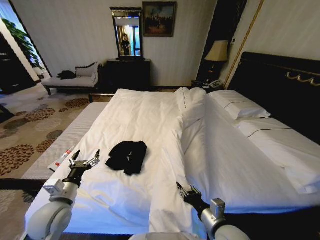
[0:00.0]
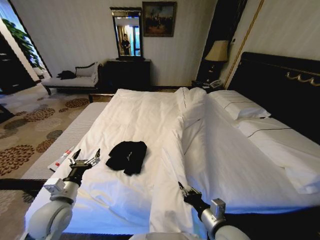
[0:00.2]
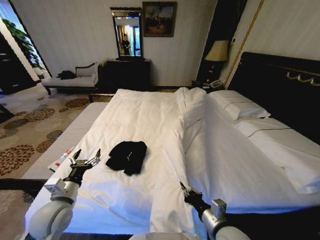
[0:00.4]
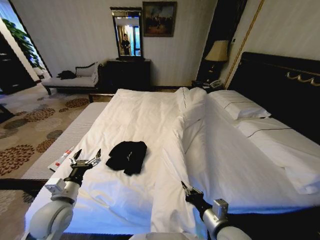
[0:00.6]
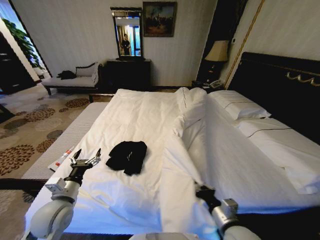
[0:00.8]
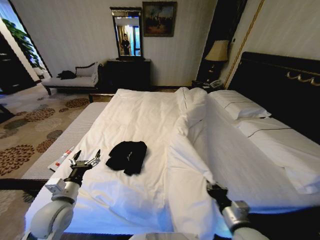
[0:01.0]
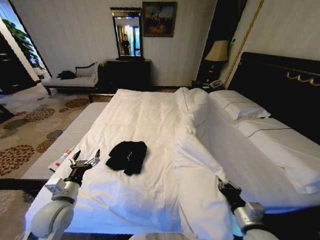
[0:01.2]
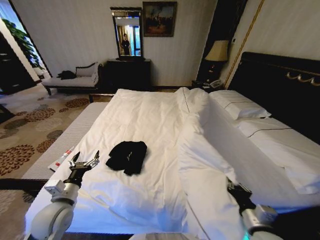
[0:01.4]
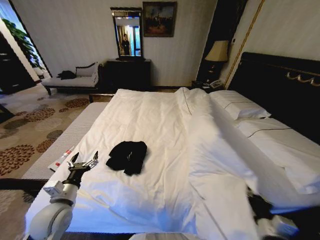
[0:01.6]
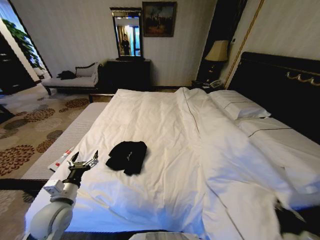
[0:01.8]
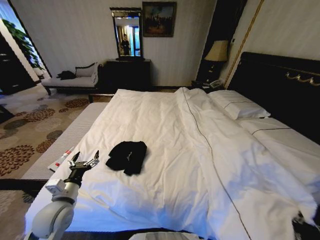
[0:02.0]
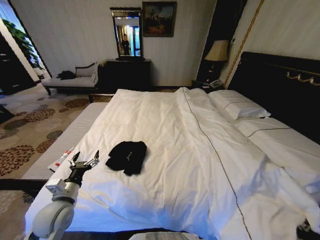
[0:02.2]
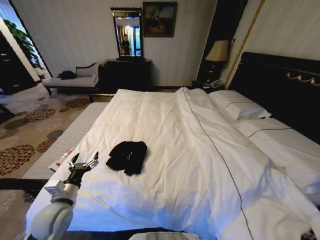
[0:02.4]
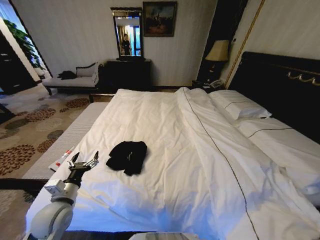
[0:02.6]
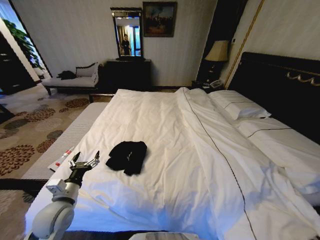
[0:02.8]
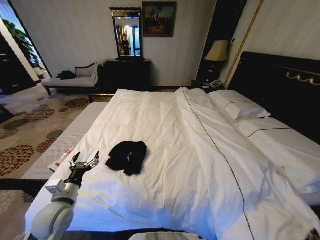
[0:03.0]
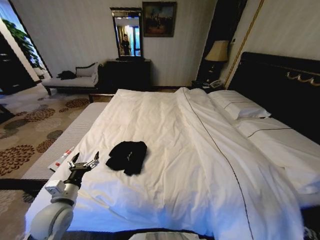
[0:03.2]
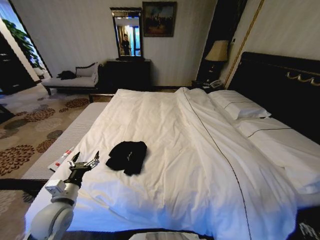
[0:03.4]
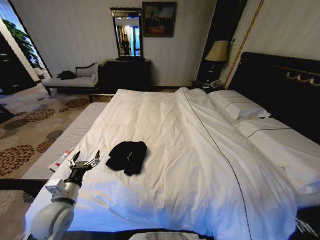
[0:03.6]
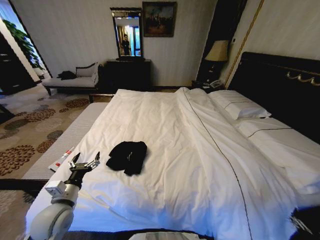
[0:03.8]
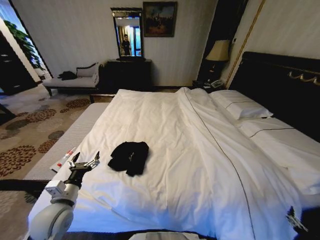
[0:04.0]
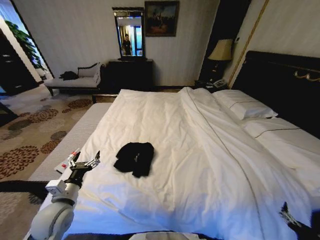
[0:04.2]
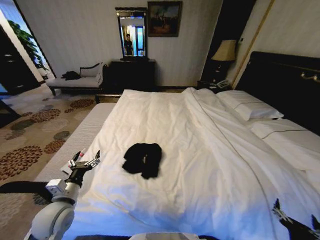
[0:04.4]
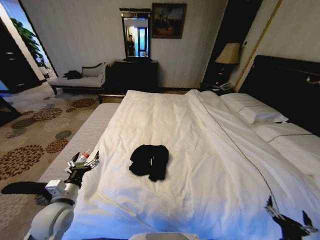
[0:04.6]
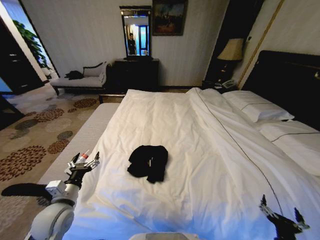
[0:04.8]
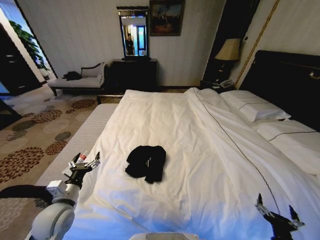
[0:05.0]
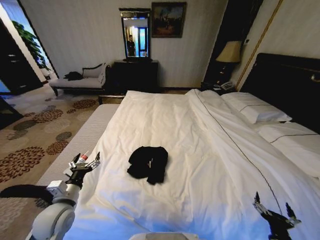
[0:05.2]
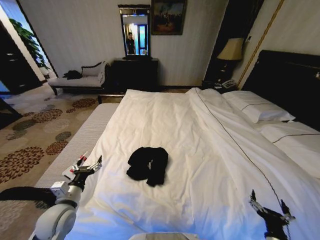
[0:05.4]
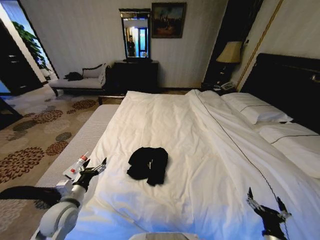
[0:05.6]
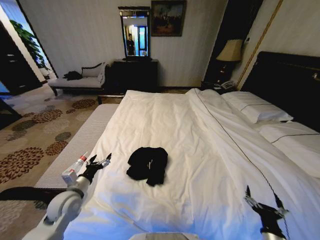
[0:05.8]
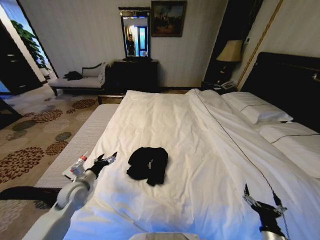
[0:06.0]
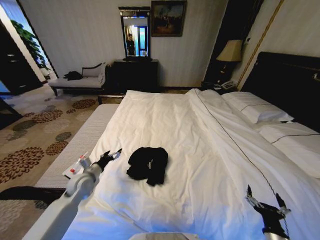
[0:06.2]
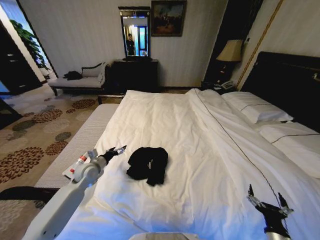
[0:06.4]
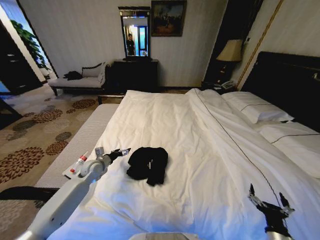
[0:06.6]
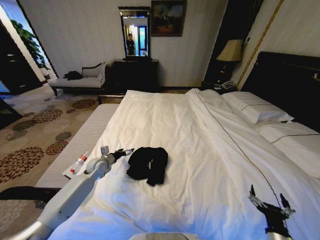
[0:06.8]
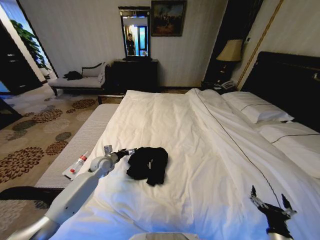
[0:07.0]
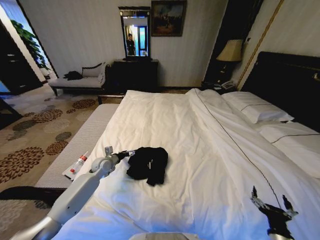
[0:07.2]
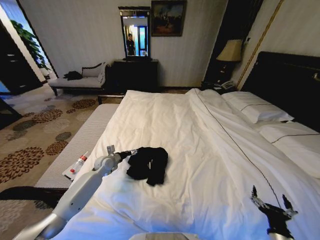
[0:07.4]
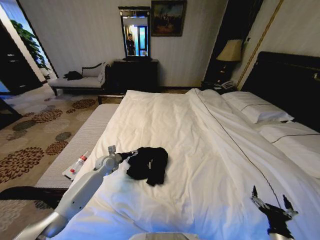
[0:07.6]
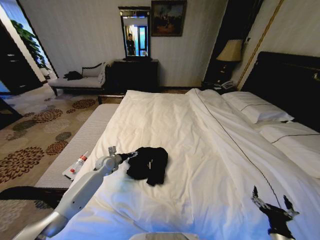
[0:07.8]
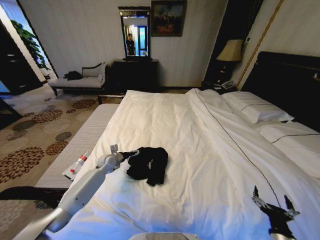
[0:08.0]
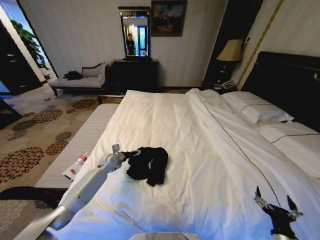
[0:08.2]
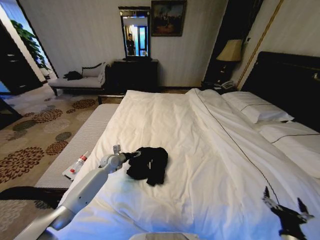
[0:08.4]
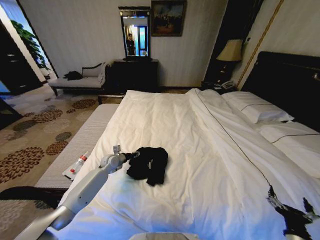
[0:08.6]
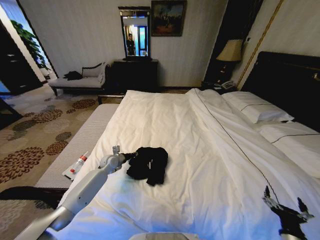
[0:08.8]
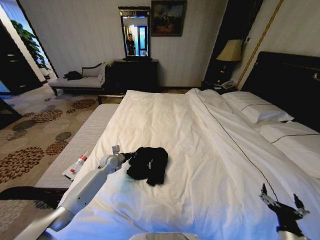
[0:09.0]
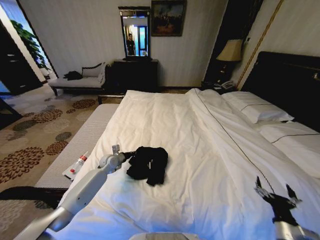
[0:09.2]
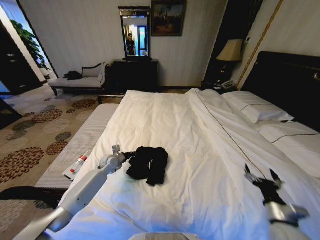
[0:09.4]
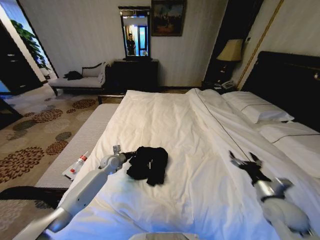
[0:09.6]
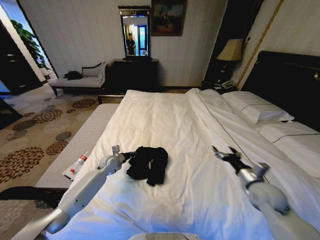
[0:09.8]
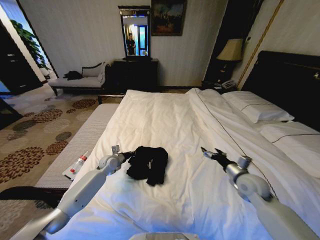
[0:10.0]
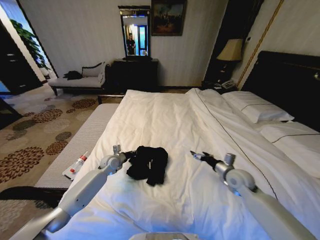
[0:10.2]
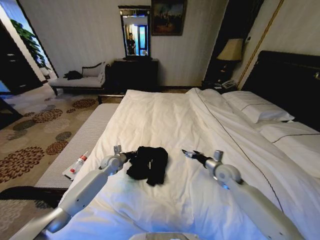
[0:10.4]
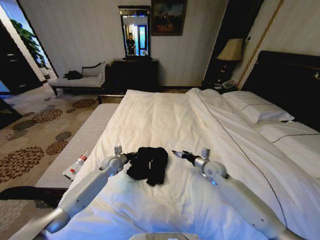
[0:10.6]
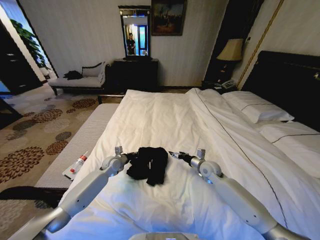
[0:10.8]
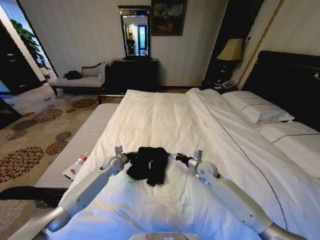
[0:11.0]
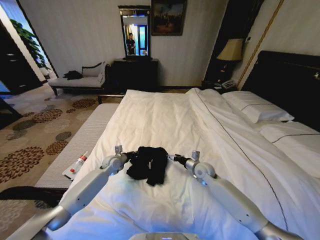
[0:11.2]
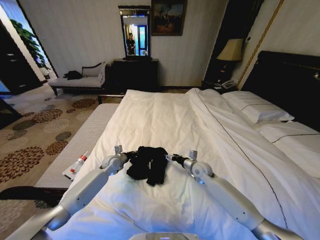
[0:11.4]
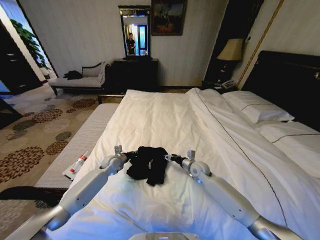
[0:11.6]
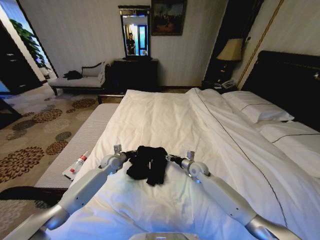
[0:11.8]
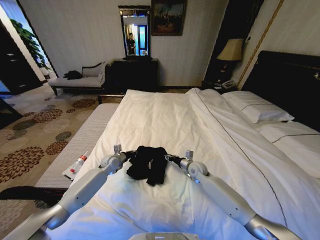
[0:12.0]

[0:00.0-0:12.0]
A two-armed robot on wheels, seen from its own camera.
Task of the whole recording: Fold the clothes on the bed.
0:00.0 to 0:01.6: The right gripper goes some 15 cm to the right, and closes up.
0:01.6 to 0:03.0: The right gripper moves to the right, downward and backward, some 20 cm.
0:03.0 to 0:04.4: The right gripper moves to the left, approximately 5 cm, and opens its fingers.
0:04.4 to 0:06.0: The right gripper changes place by roughly 5 cm. Meanwhile the left gripper travels forward by approximately 10 cm.
0:06.0 to 0:07.6: The left gripper goes some 15 cm forward.
0:07.6 to 0:09.0: The left gripper closes.
0:09.0 to 0:10.4: The right gripper heads forward, covering about 30 cm.
0:10.4 to 0:12.0: The right gripper is displaced to the left, downward and forward by about 15 cm, and closes up.

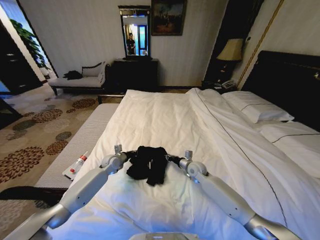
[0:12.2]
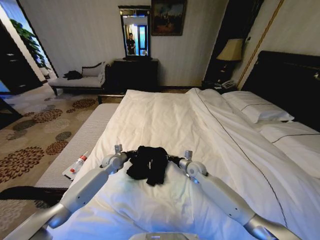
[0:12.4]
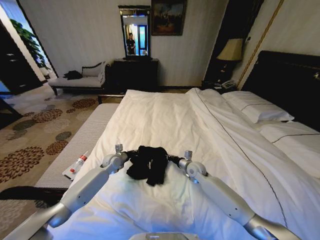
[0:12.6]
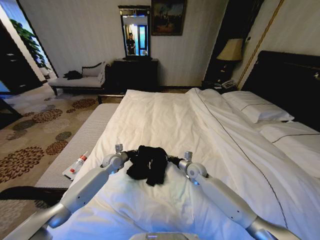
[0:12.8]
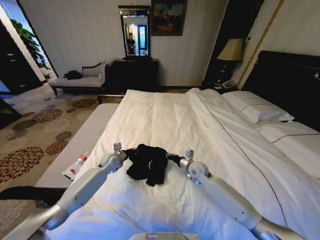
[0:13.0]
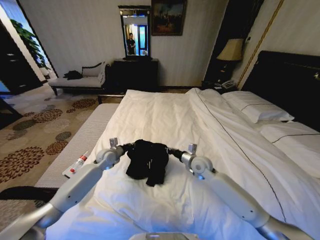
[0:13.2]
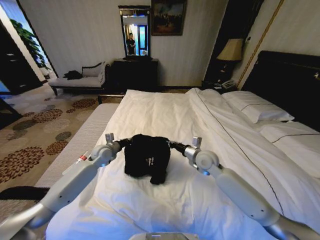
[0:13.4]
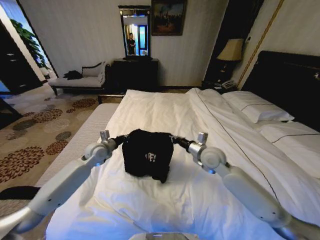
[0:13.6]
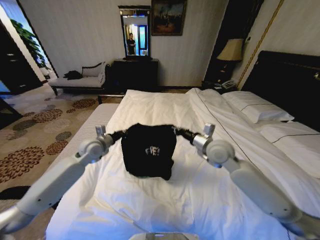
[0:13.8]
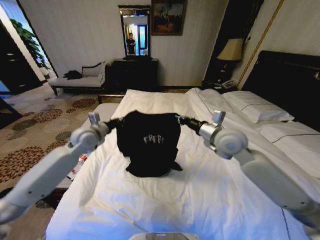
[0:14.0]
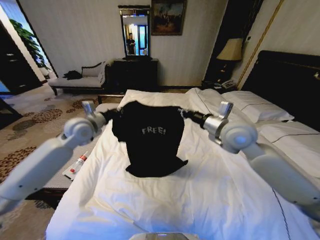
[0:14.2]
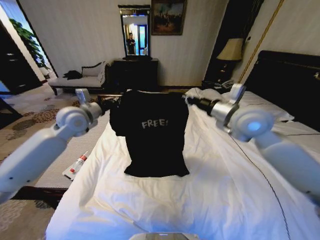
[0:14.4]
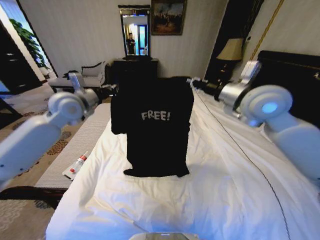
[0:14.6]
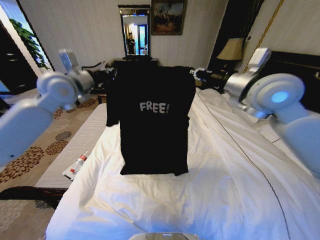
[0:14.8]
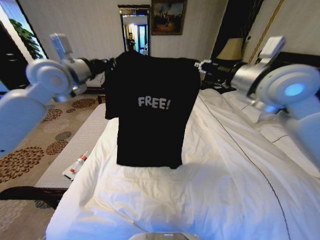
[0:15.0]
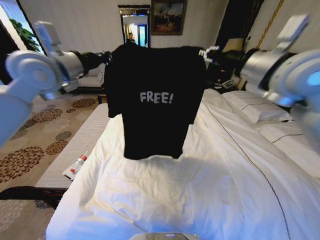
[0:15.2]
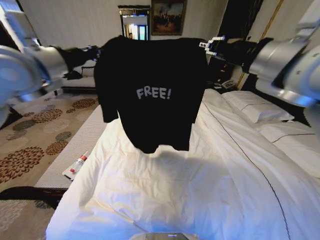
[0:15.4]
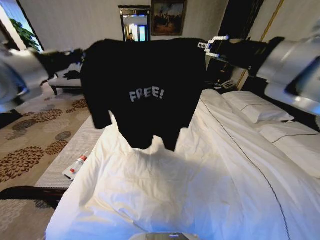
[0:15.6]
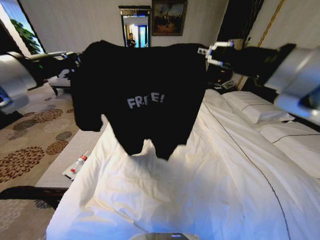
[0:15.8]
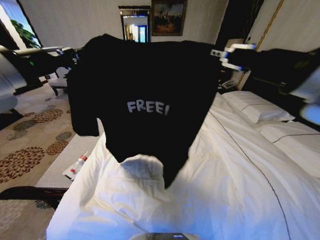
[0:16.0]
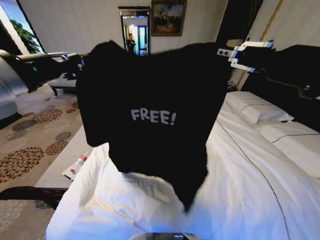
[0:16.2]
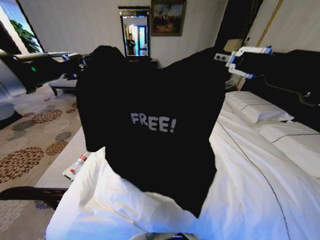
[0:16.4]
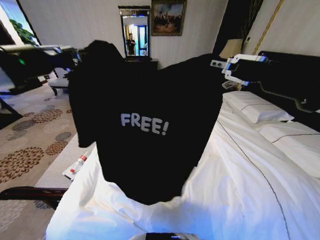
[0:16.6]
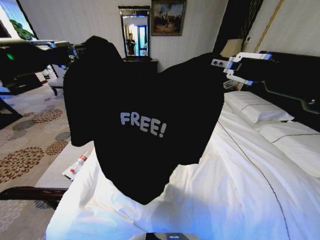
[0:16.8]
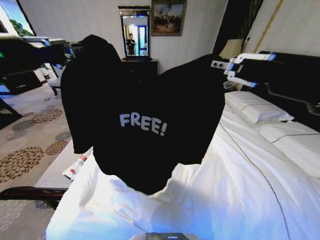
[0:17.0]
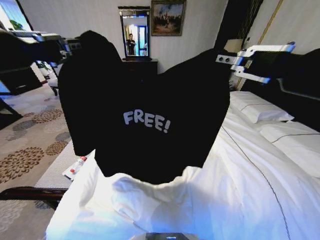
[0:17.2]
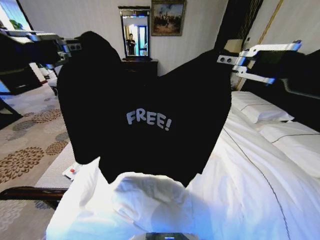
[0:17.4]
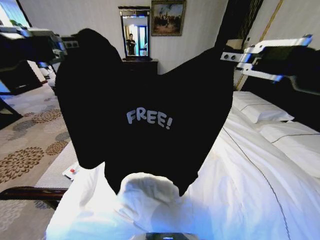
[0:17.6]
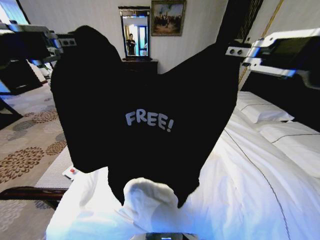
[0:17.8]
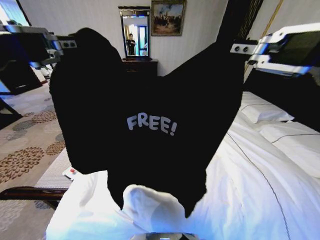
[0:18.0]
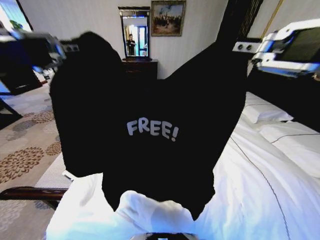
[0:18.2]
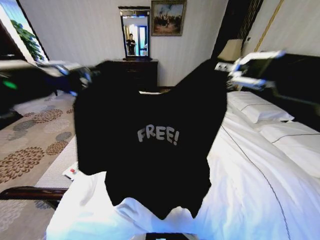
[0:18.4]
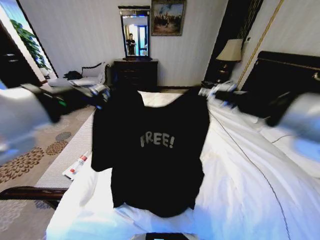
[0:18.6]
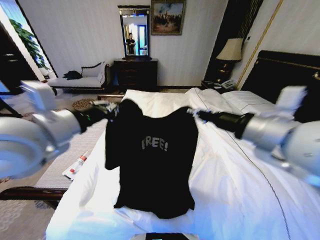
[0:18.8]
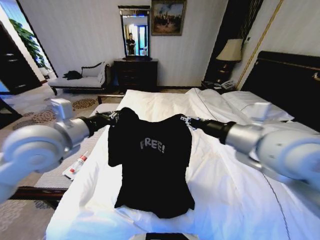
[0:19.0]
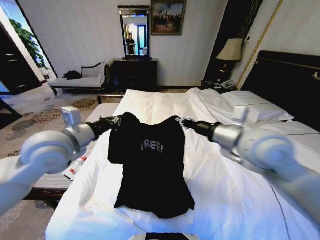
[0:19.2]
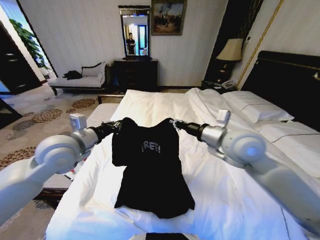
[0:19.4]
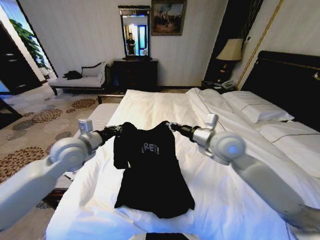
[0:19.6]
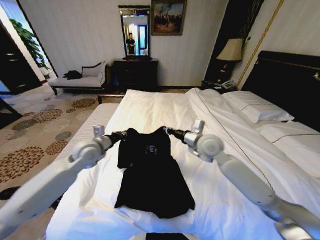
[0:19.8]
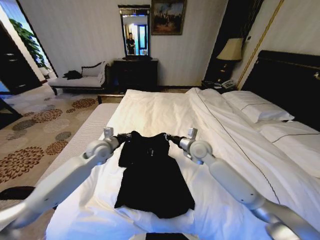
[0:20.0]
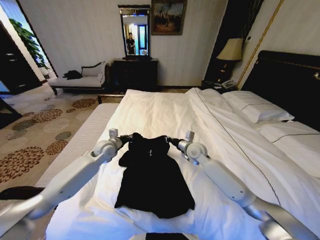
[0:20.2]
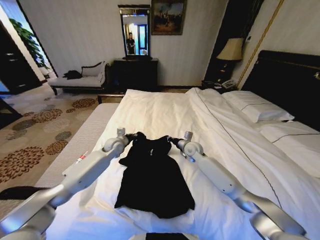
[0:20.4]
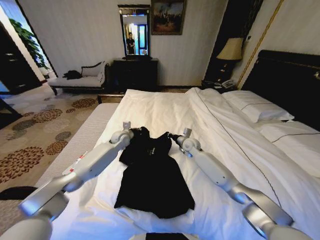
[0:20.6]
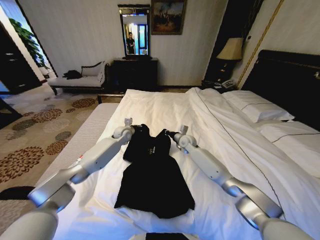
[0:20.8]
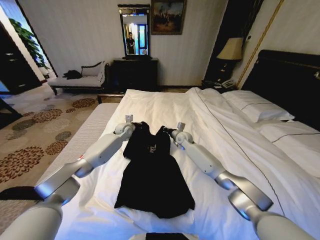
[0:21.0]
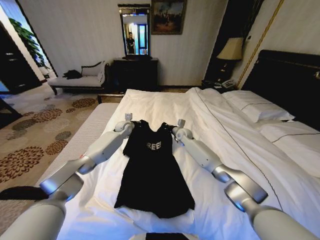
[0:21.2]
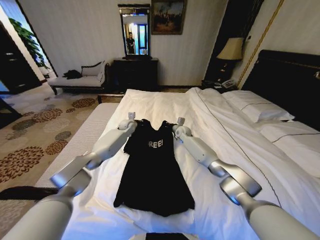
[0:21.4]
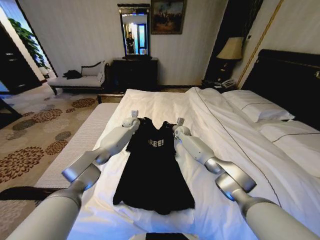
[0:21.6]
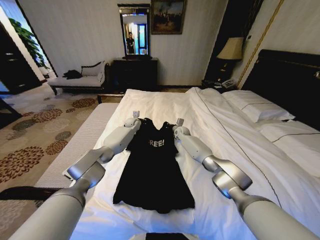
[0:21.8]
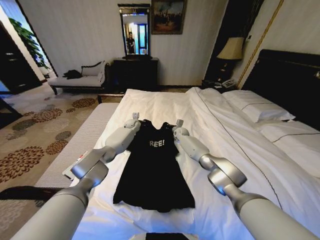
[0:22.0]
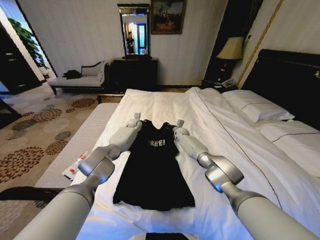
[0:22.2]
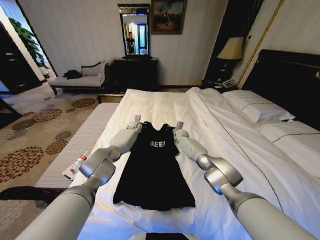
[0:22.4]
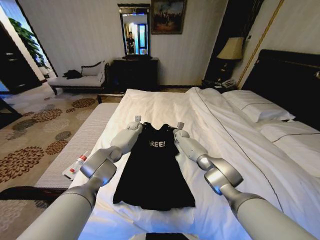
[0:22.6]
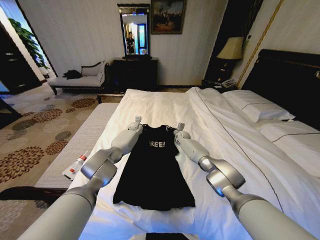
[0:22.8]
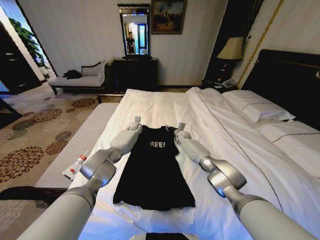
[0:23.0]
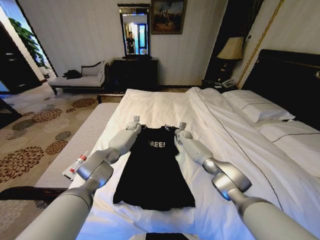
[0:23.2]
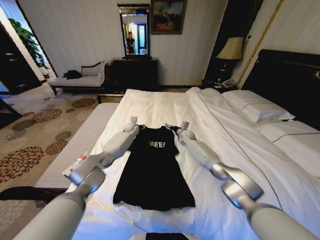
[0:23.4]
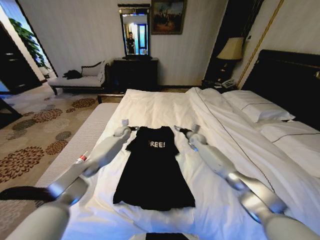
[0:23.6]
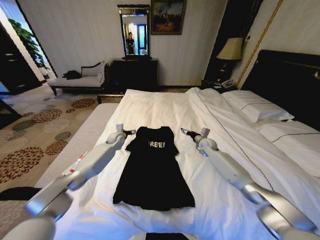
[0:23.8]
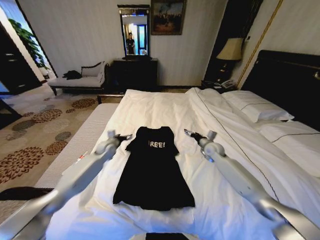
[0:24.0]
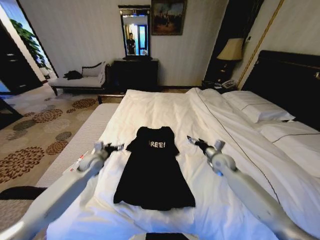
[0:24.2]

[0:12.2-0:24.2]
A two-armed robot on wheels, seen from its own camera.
Task of the whole recording: Fold the clothes on the bed.
0:12.2 to 0:13.8: The two grippers go some 20 cm upward.
0:13.8 to 0:15.2: Both grippers move upward, approximately 30 cm.
0:15.2 to 0:16.6: The two grippers go approximately 20 cm backward.
0:16.6 to 0:18.2: The left gripper goes approximately 10 cm backward. Meanwhile the right gripper is displaced backward by some 5 cm.
0:18.2 to 0:19.8: The grippers both shift downward and forward by approximately 40 cm.
0:19.8 to 0:21.2: The left gripper shifts about 25 cm forward. Meanwhile the right gripper heads forward and downward, covering roughly 25 cm.
0:21.2 to 0:22.6: The right gripper goes roughly 10 cm downward and forward, while the left gripper moves forward, to the right and downward, some 10 cm.
0:22.6 to 0:24.2: The left gripper shifts roughly 35 cm backward and to the left, and opens. Meanwhile the right gripper is displaced backward and to the right by approximately 30 cm, and opens.
